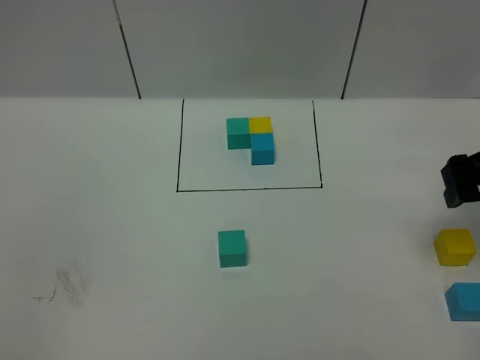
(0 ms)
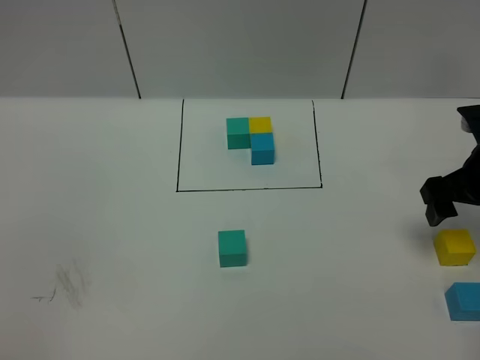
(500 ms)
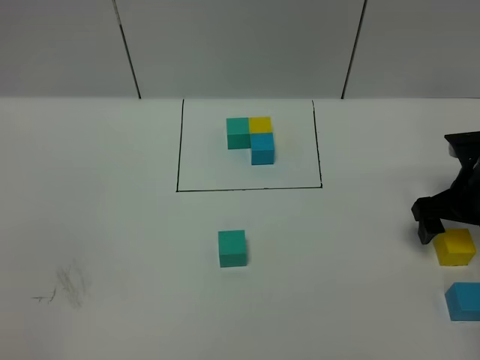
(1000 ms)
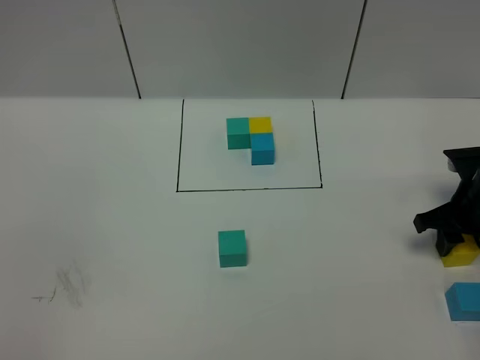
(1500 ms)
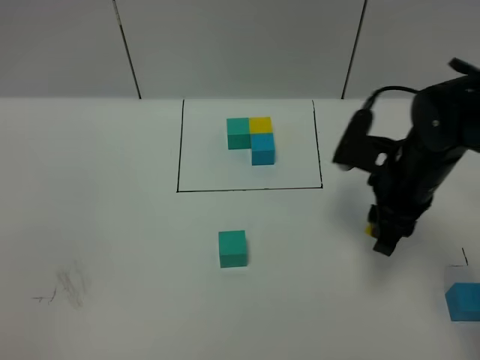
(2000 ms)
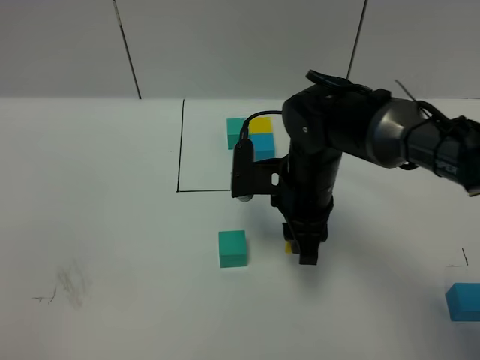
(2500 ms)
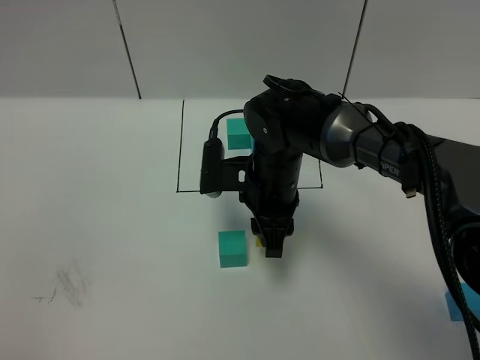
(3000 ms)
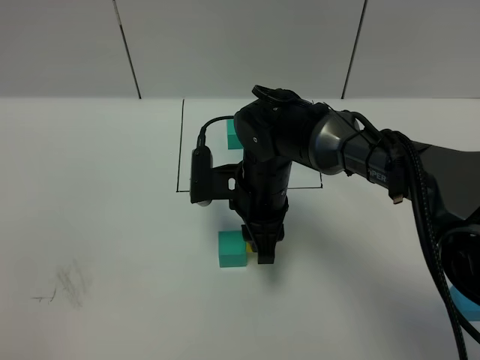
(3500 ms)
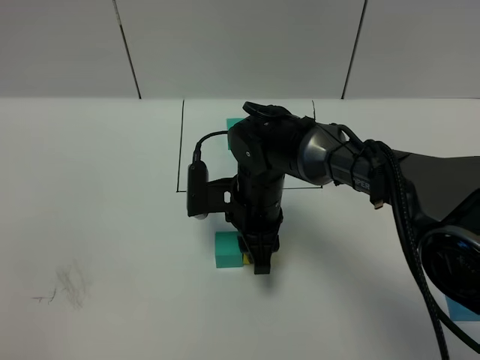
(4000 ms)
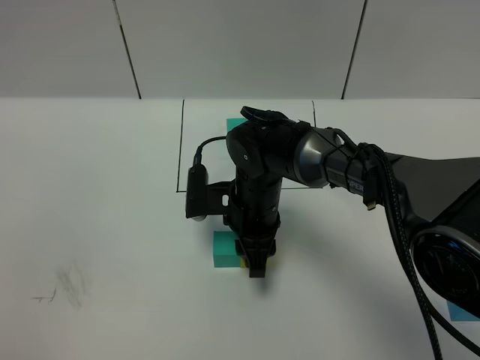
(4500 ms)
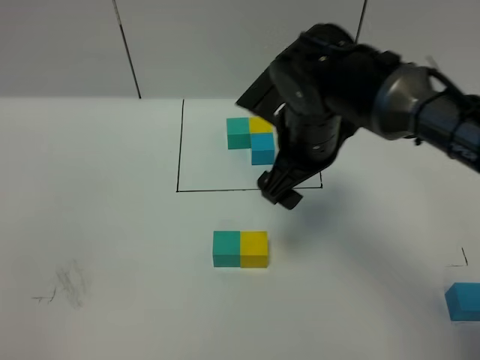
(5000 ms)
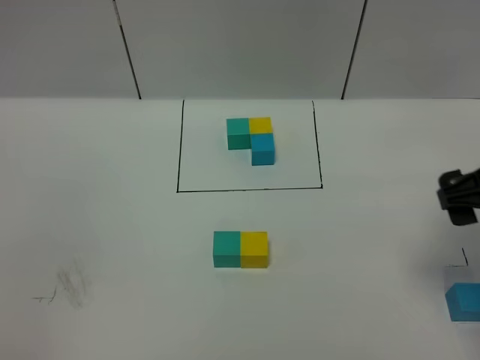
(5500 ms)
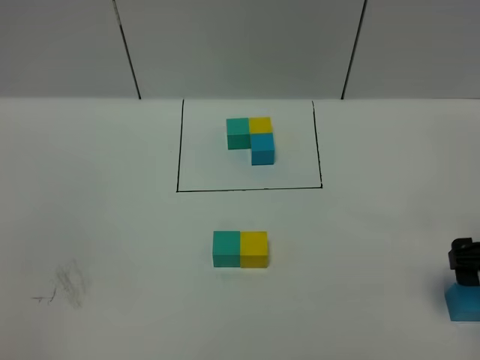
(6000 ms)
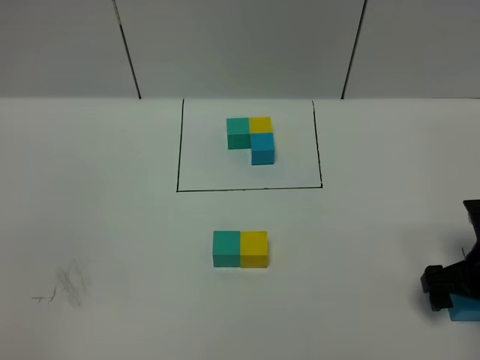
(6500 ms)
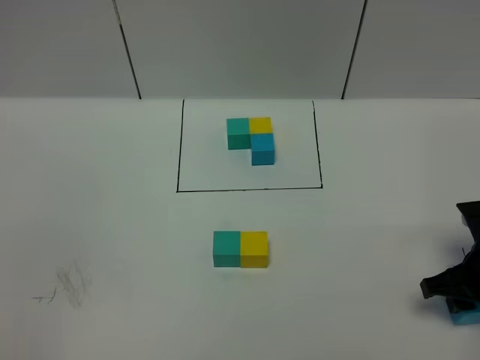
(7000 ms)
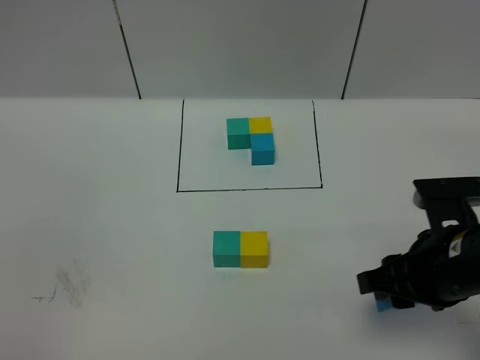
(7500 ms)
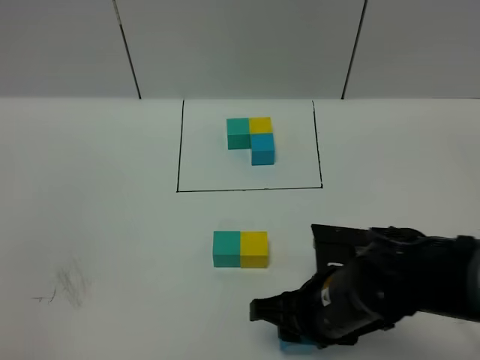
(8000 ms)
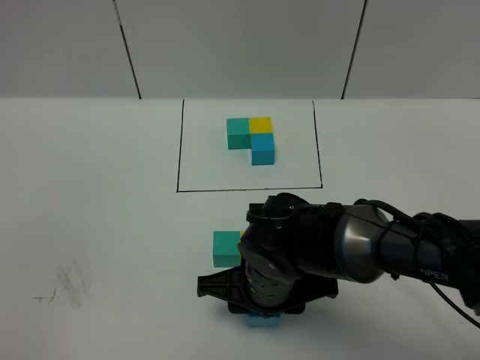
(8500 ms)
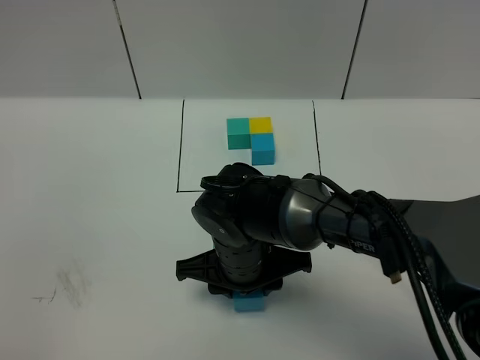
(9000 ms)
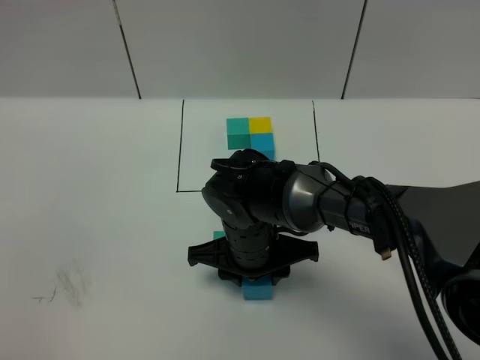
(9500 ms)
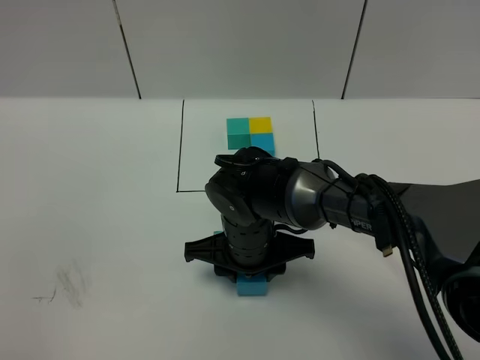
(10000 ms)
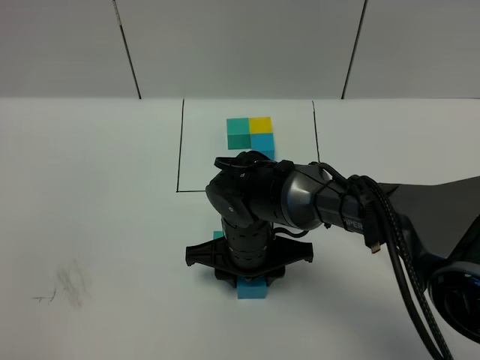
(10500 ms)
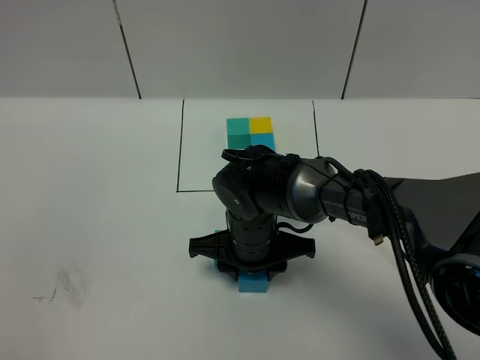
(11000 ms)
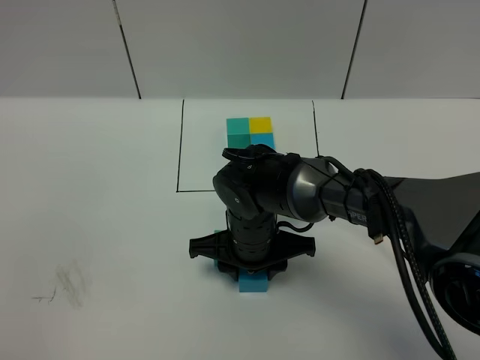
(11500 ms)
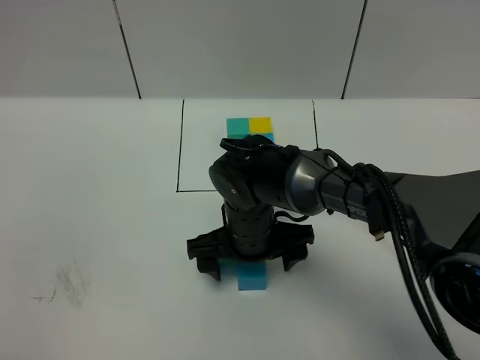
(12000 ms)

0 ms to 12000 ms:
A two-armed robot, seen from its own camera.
Task of the whole recording: According to the building block template in front, assemble the scattered blocks together.
Step, 0 ms to 4500 ms: Put the yellow cube on the right of the green cube.
Step, 5000 ms to 11500 ms: Put the blue cube in the front of the yellow cube.
0 ms to 2000 ms: The right gripper shifts some 15 cm to the left and downward, and closes up.
2000 ms to 4000 ms: The right gripper heads to the left and downward, covering roughly 15 cm.
4000 ms to 6000 ms: The right gripper travels to the right by approximately 30 cm, and opens its fingers.
6000 ms to 8000 ms: The right gripper travels to the left by about 20 cm, and closes.
8000 ms to 10000 ms: The right gripper heads to the left and forward, covering approximately 15 cm.
10000 ms to 12000 ms: The right gripper opens.

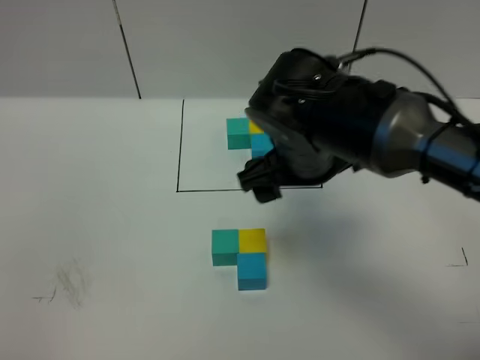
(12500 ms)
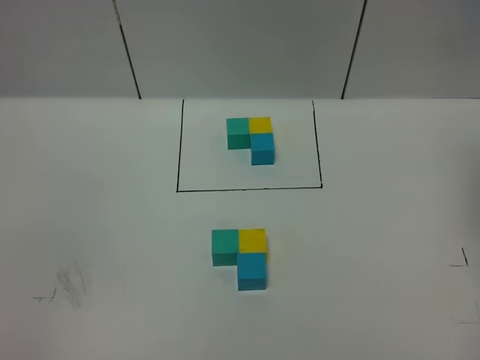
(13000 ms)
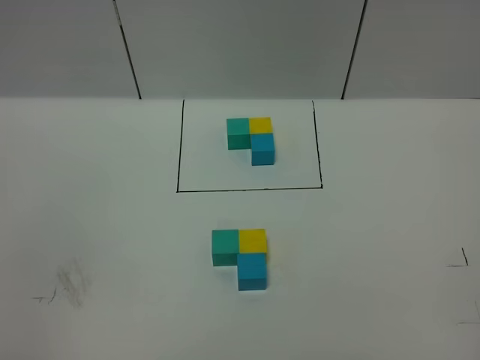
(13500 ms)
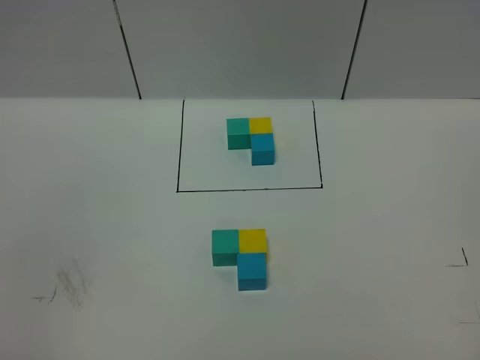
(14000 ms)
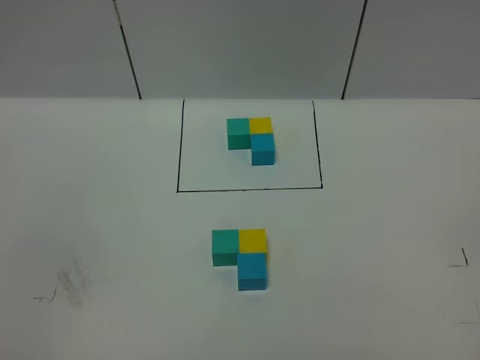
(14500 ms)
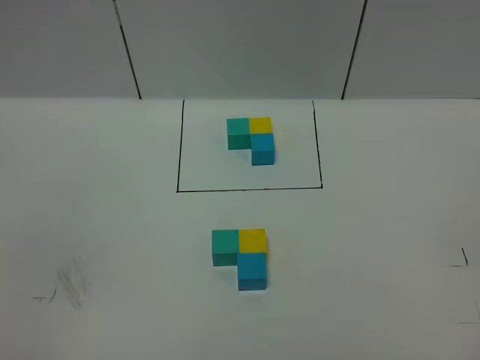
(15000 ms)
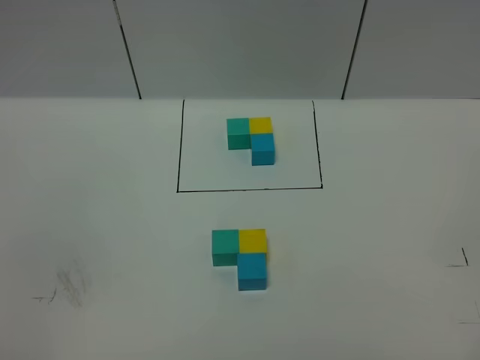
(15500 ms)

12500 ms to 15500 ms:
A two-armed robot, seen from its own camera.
Task of the whole recording: According to the building block template in front, assemble the scattered blocks together.
12500 ms to 14000 ms: The right gripper shifts approximately 40 cm backward and to the right.
